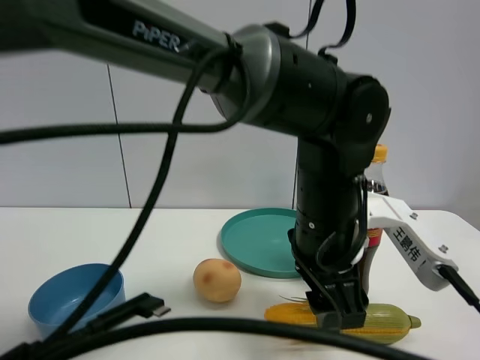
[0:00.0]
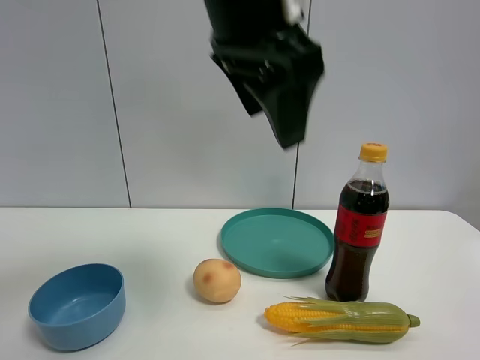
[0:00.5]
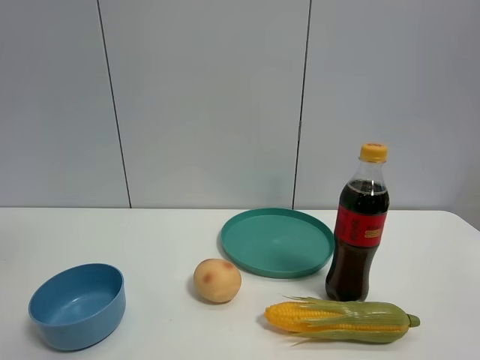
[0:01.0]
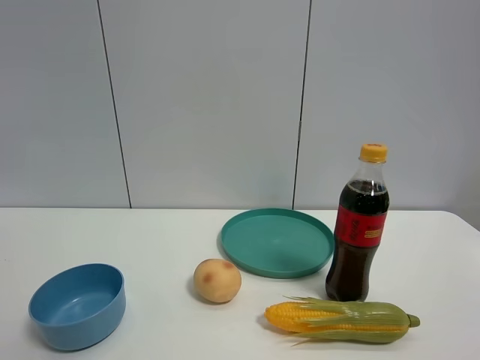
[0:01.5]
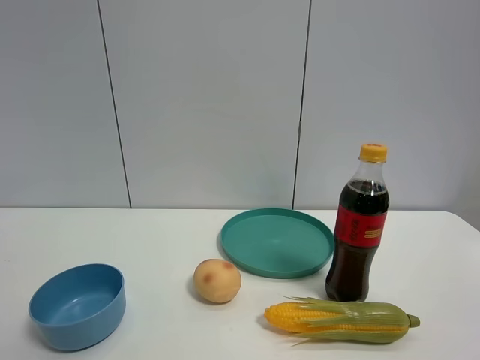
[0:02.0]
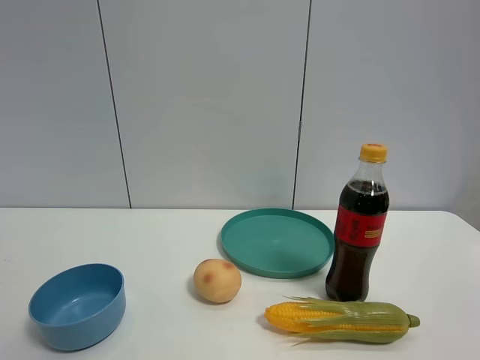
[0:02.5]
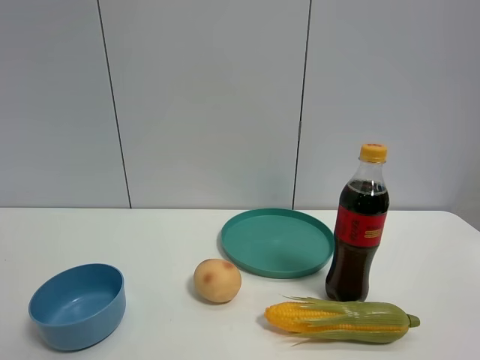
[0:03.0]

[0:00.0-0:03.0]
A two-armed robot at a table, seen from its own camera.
Task of the whole recording: the gripper move the object.
0:00.0 to 0:01.5: The left gripper is displaced to the left, upward and backward by some 50 cm.

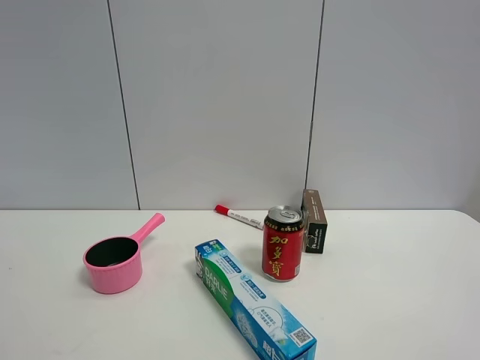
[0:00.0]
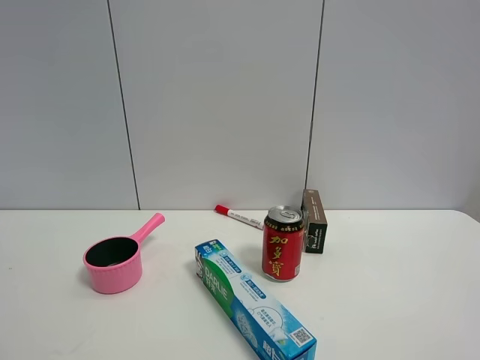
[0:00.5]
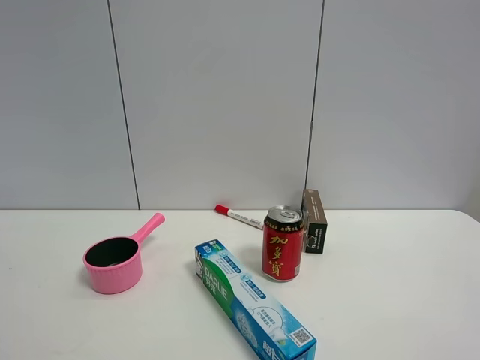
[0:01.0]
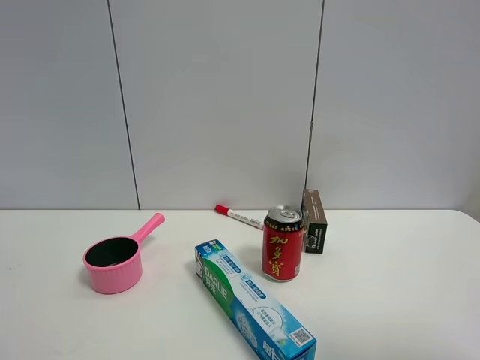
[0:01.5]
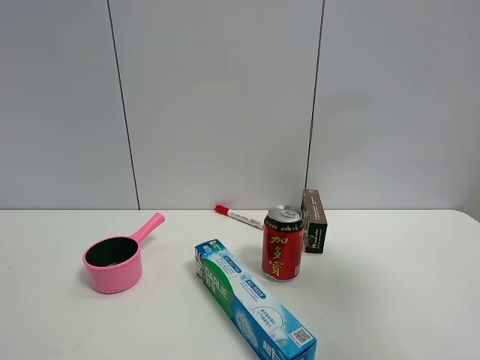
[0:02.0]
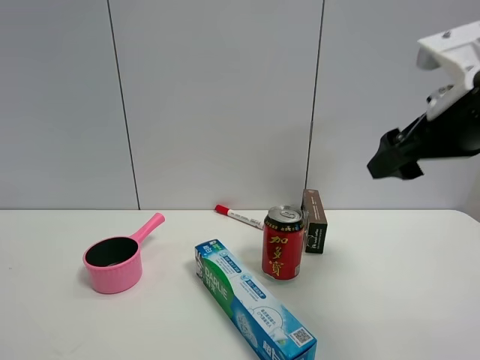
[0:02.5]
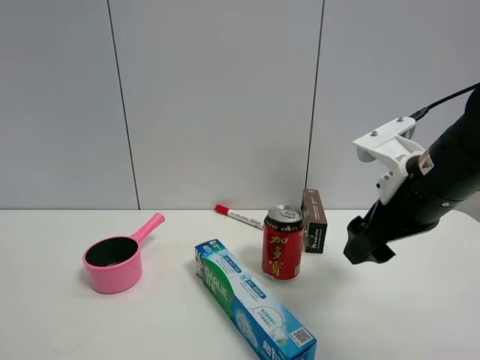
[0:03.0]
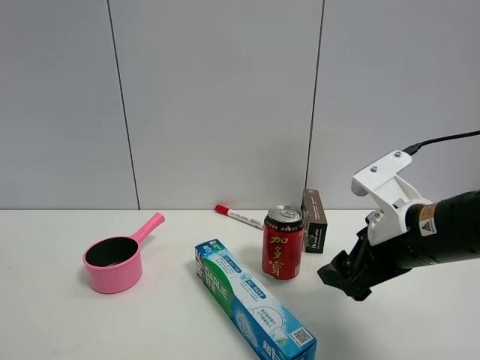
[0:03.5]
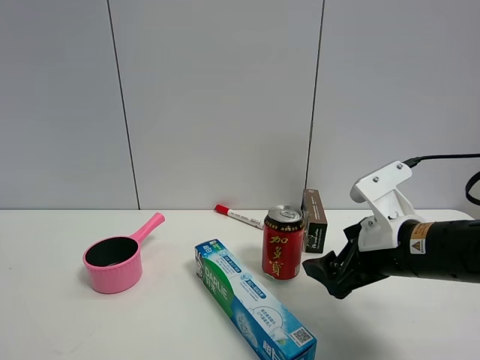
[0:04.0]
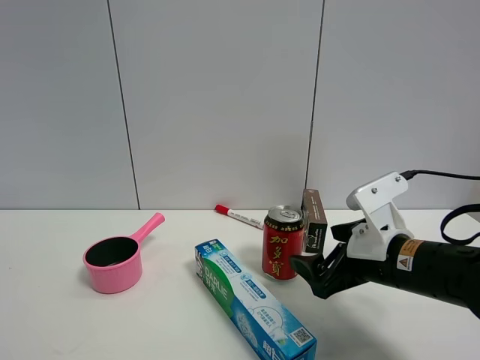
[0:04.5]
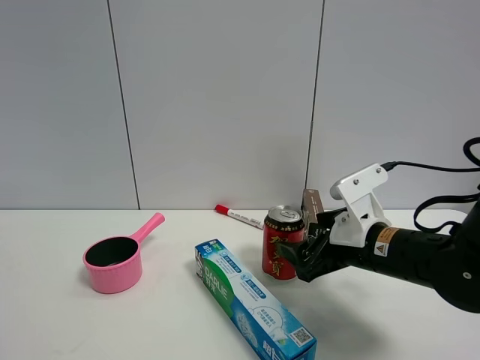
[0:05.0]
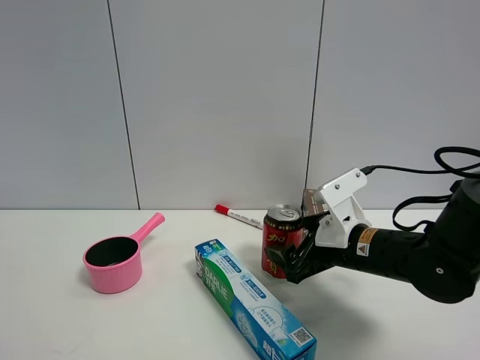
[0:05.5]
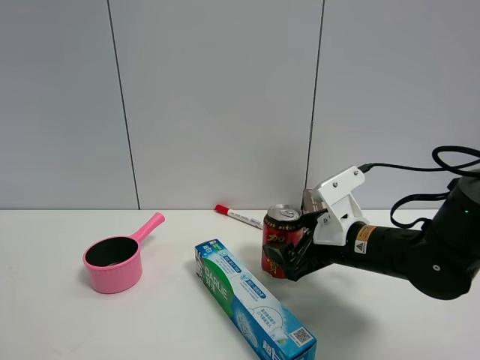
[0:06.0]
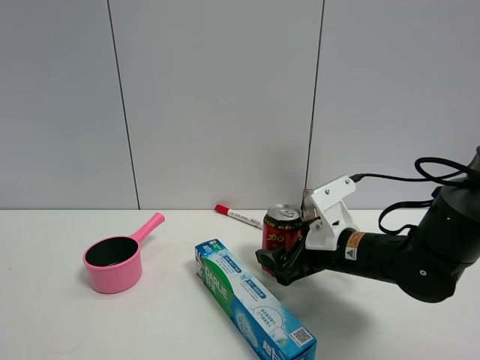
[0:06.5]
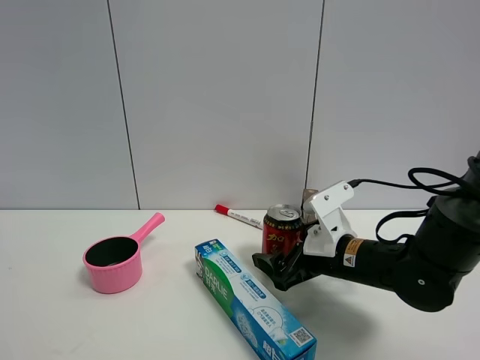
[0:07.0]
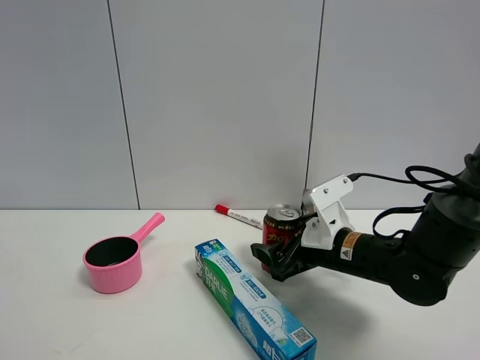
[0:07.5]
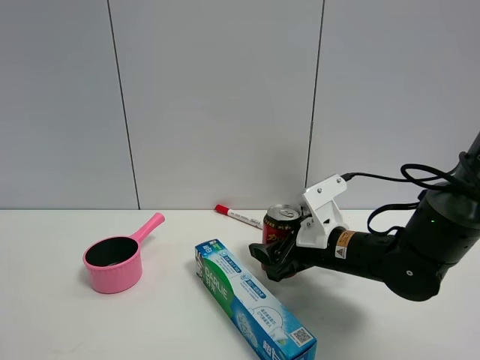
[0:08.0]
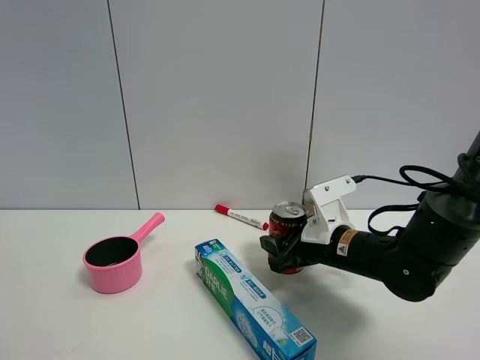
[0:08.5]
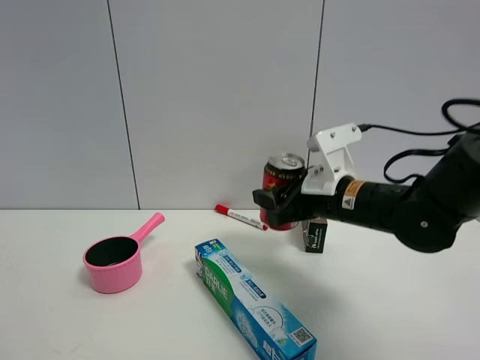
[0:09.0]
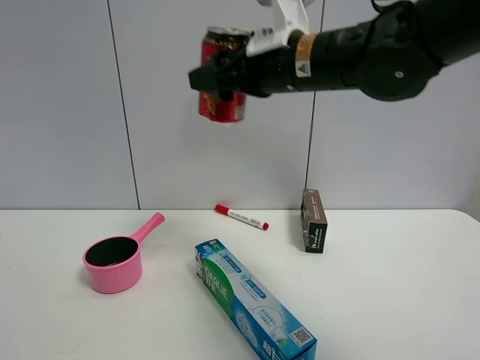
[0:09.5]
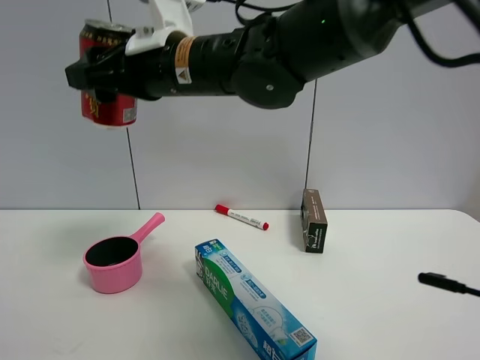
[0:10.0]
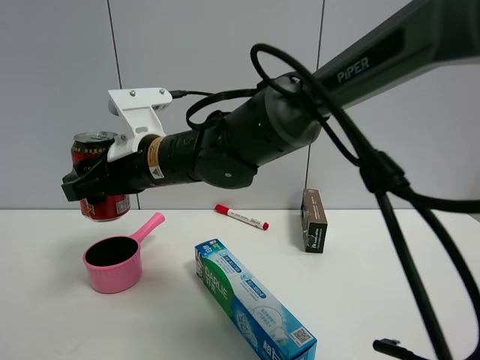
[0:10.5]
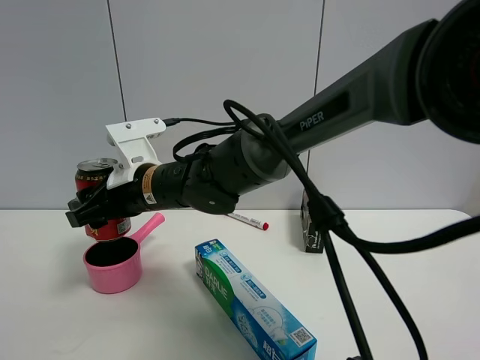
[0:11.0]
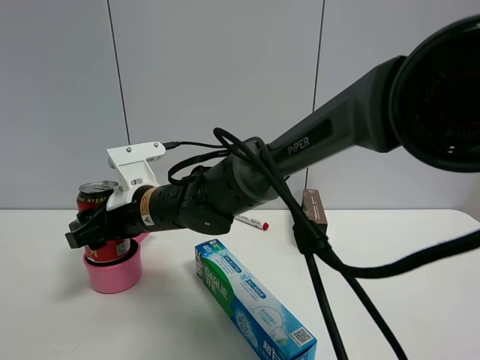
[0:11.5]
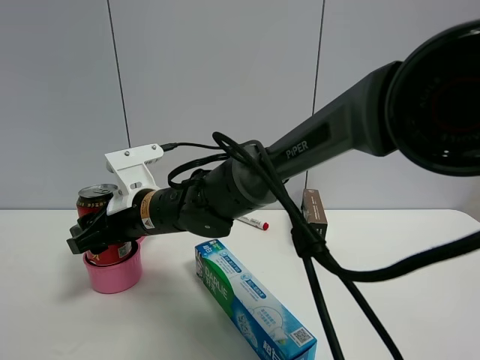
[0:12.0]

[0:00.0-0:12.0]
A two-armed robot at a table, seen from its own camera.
Task of the whole recording: the gripper move the object.
Step, 0:00.0 to 0:08.0: Grasp the Jia Duo Bao with the right gripper.
0:00.0 to 0:02.0: The right gripper heads forward and upward, covering about 20 cm.
0:02.0 to 0:04.0: The right gripper shifts approximately 25 cm downward.
0:04.0 to 0:06.0: The right gripper travels forward by roughly 5 cm.
0:06.0 to 0:08.0: The right gripper closes.
0:08.0 to 0:10.0: The right gripper is displaced upward and to the left by roughly 30 cm, and closes its fingers.
0:10.0 to 0:12.0: The right gripper goes approximately 15 cm downward.

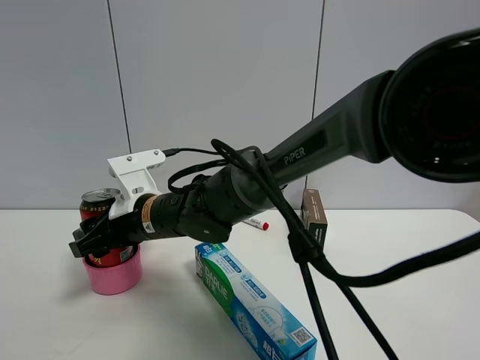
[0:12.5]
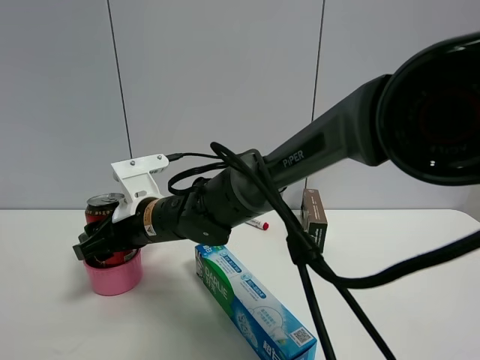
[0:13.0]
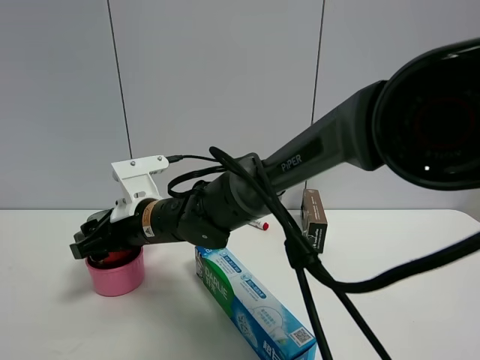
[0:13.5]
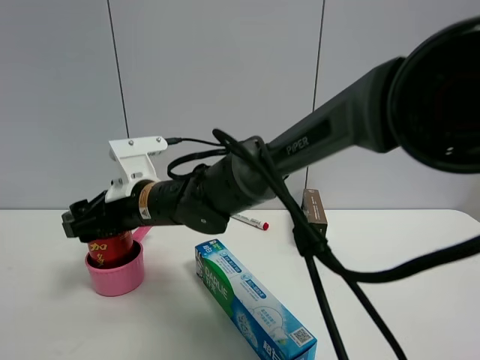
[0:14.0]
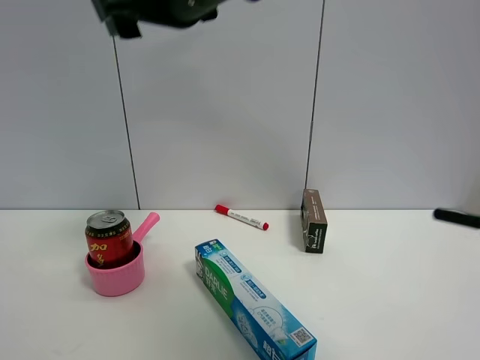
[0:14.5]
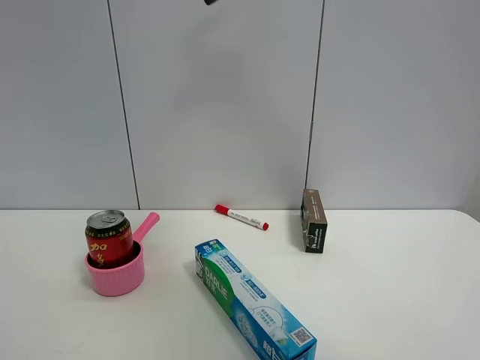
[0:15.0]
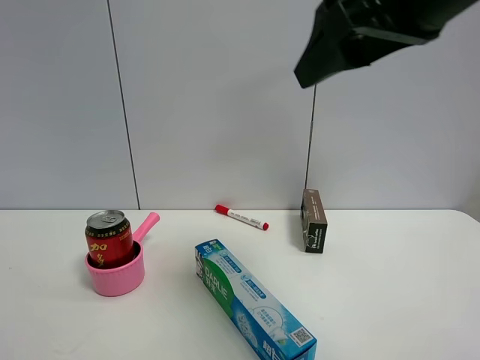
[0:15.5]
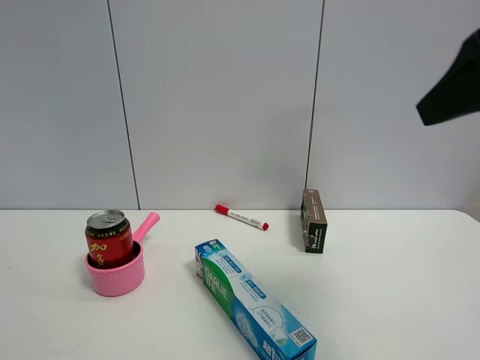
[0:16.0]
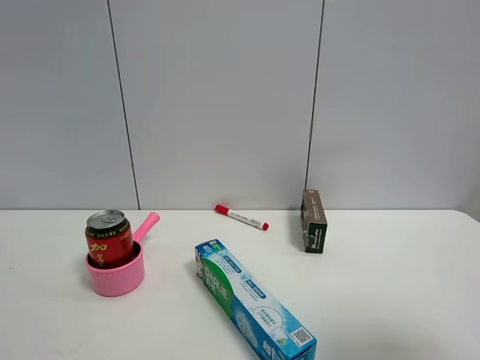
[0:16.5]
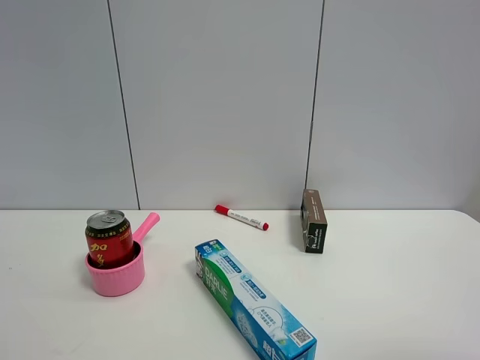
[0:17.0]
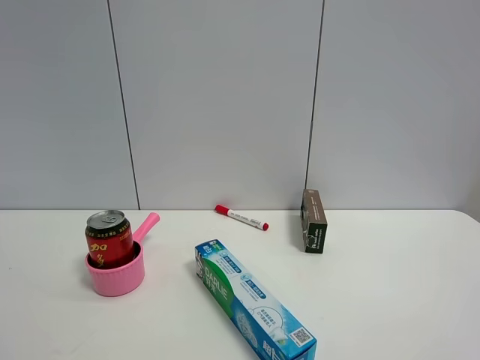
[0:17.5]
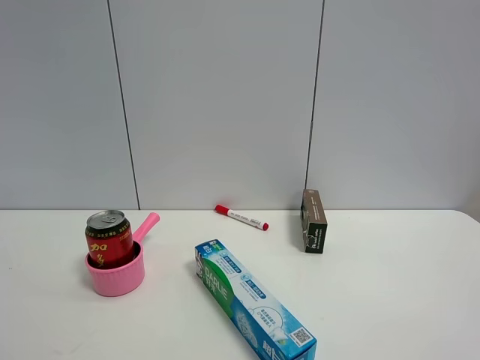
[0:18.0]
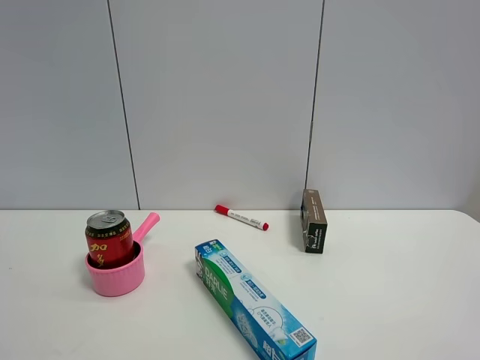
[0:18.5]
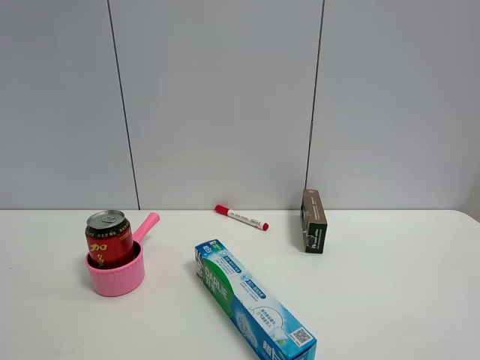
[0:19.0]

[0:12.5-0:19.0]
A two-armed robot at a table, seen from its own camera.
Task of the whole recording: the gripper move the object.
0:12.5 to 0:14.5: The right gripper goes about 25 cm upward, and opens up.
0:14.5 to 0:17.0: The right gripper goes roughly 50 cm to the right and backward.

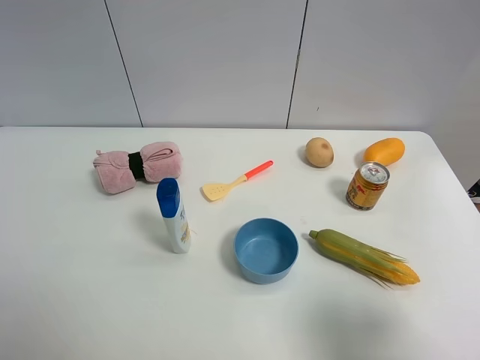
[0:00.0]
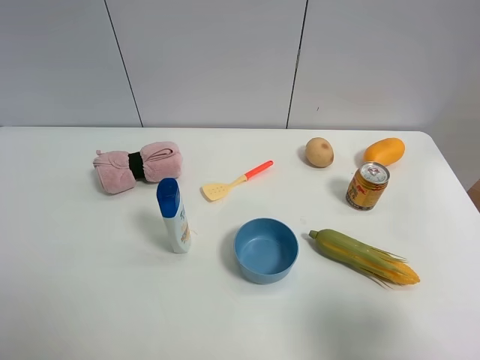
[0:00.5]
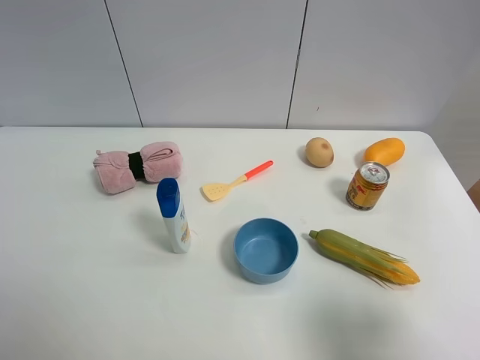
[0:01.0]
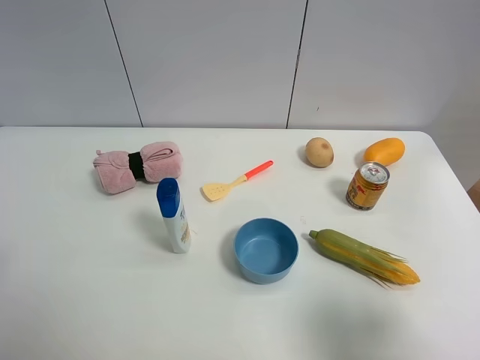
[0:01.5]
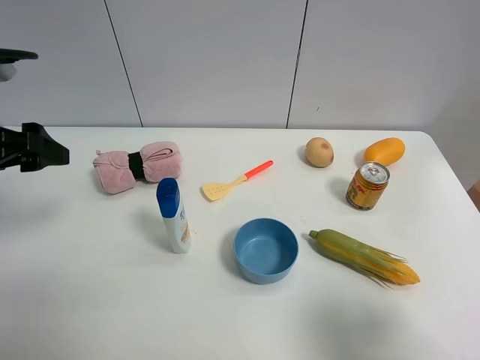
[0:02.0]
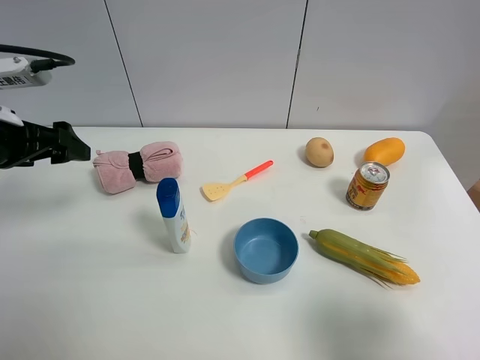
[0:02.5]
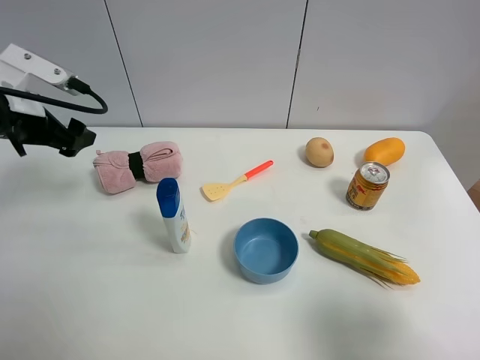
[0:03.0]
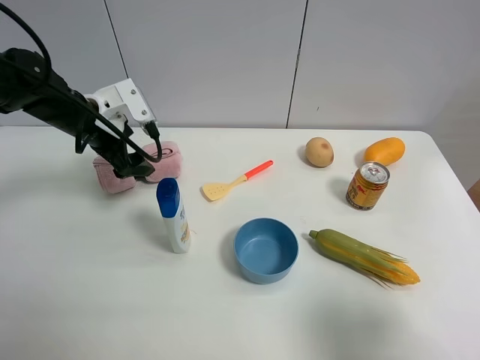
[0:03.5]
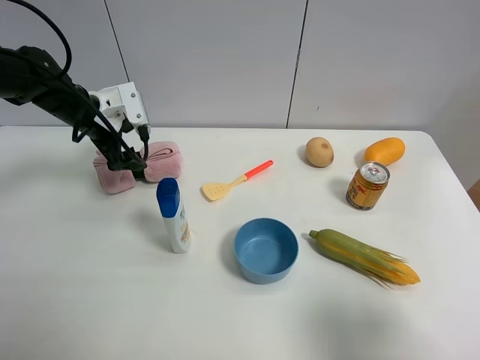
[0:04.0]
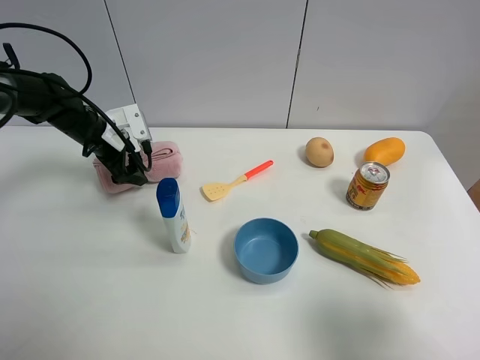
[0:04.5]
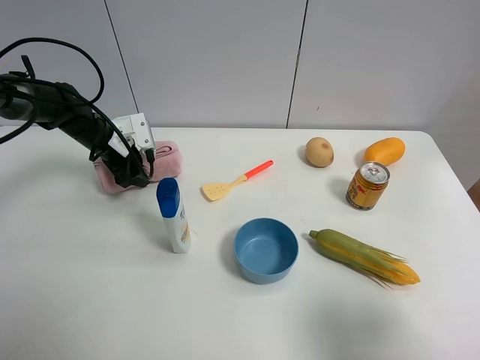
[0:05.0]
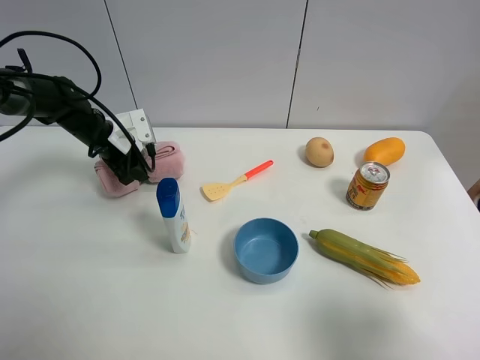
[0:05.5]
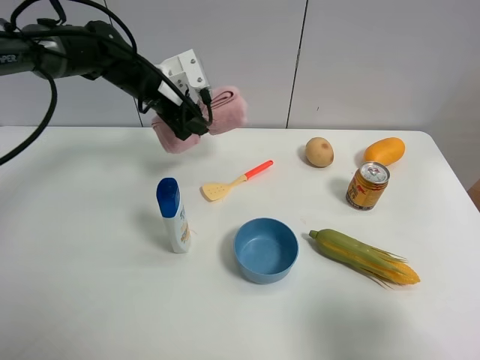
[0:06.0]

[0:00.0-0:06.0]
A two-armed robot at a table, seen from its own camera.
Task of the whole recording: the gripper move the object.
Step, 0:00.0 to 0:05.0: Grasp the pink towel with the left gripper.
0:00.0 to 0:02.0: The left gripper heads forward, covering roughly 20 cm.
0:02.0 to 0:04.0: The left gripper goes about 20 cm forward and downward.
0:04.0 to 0:06.0: The left gripper shifts approximately 10 cm to the right, and closes.
